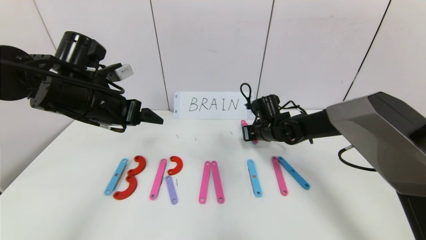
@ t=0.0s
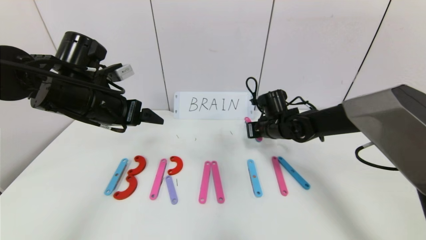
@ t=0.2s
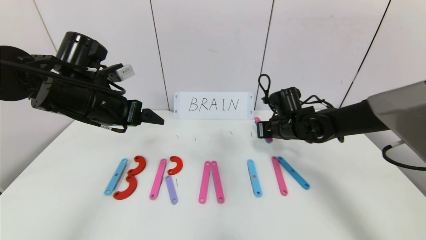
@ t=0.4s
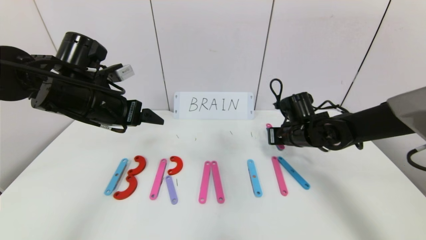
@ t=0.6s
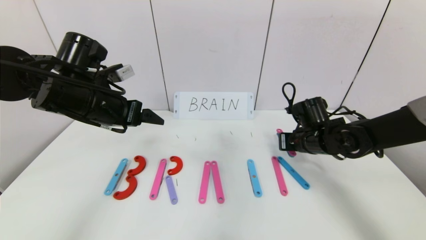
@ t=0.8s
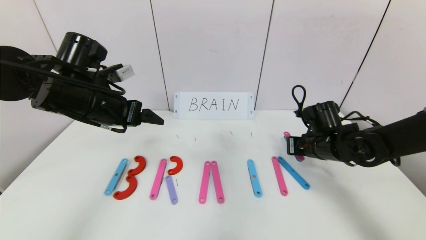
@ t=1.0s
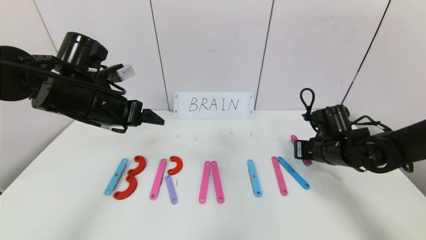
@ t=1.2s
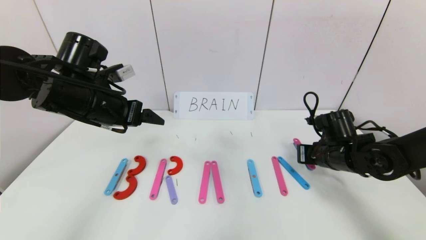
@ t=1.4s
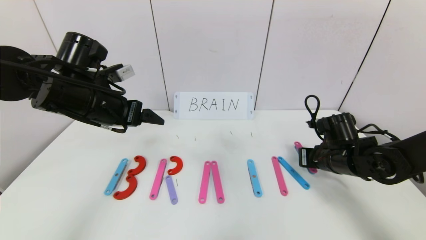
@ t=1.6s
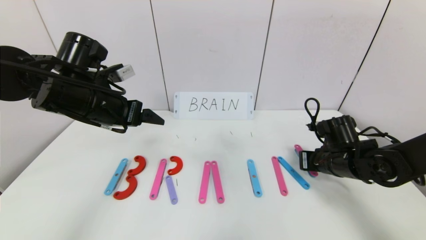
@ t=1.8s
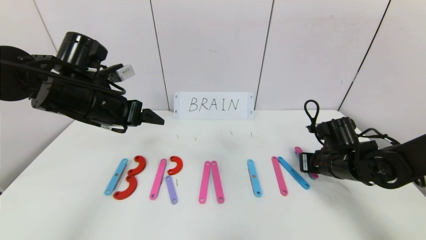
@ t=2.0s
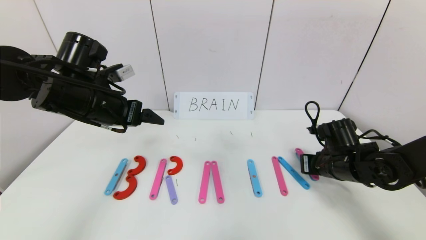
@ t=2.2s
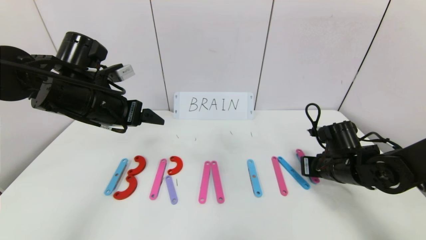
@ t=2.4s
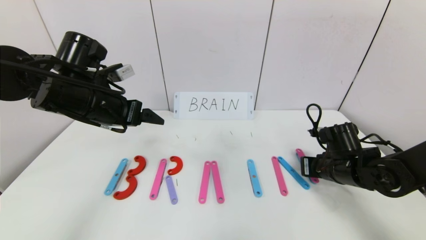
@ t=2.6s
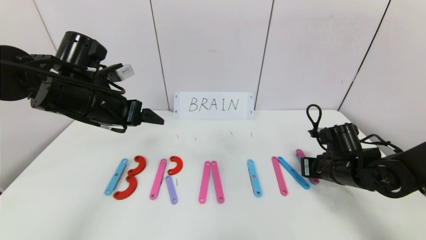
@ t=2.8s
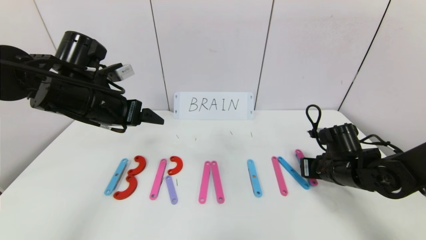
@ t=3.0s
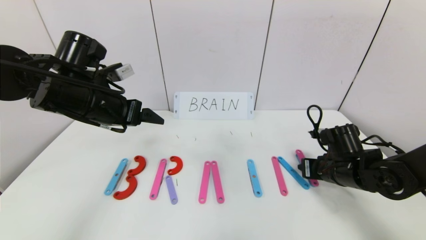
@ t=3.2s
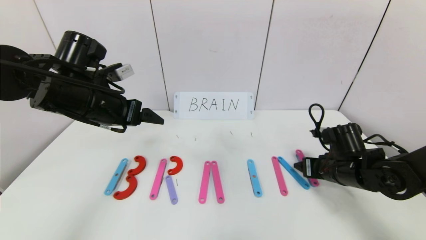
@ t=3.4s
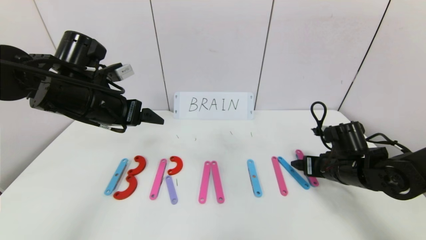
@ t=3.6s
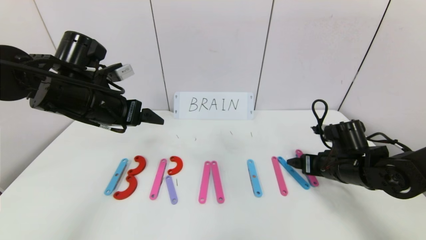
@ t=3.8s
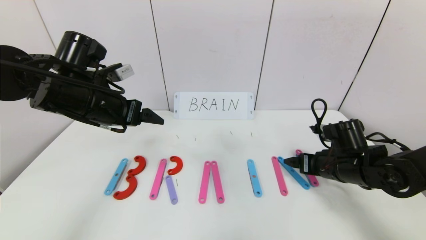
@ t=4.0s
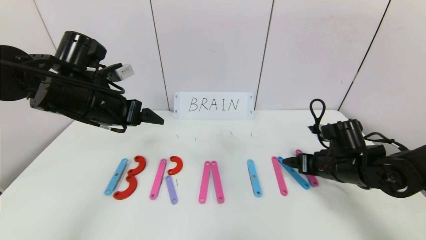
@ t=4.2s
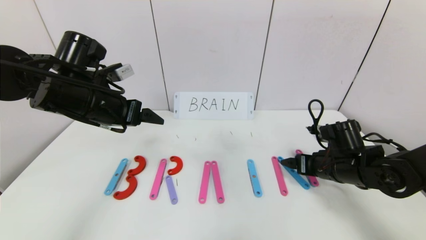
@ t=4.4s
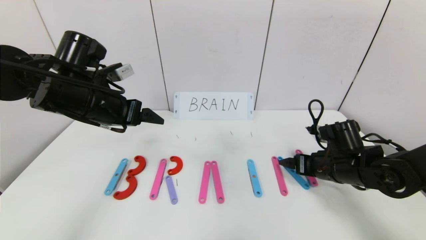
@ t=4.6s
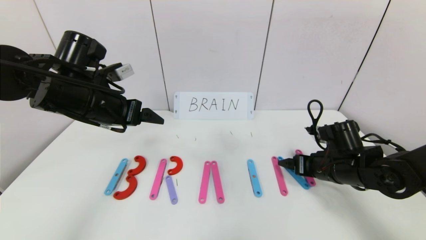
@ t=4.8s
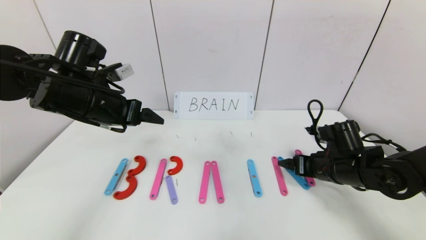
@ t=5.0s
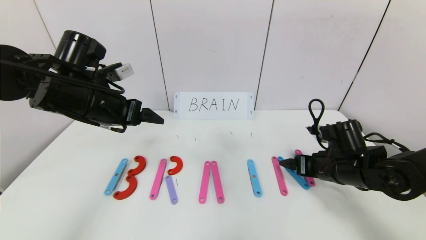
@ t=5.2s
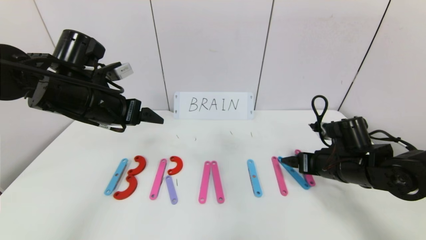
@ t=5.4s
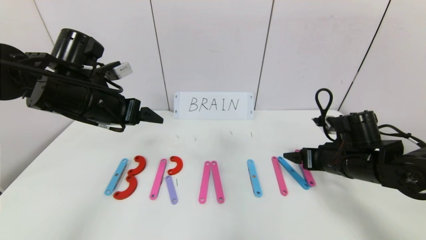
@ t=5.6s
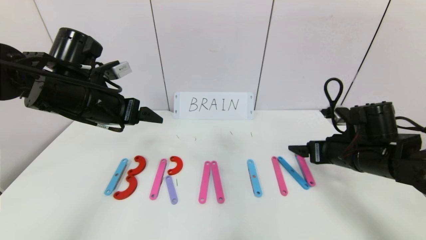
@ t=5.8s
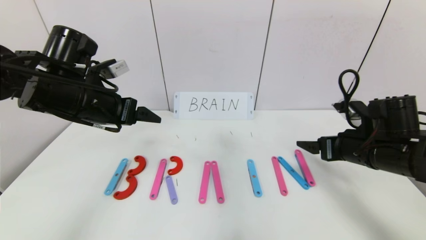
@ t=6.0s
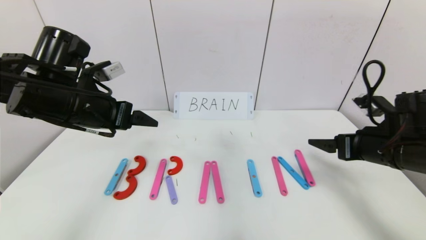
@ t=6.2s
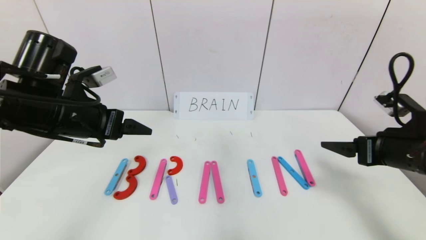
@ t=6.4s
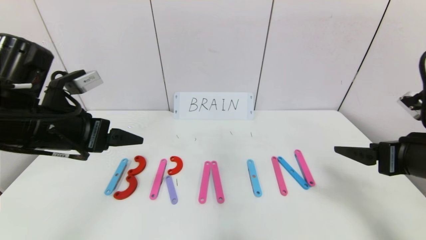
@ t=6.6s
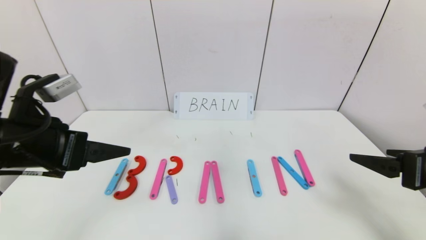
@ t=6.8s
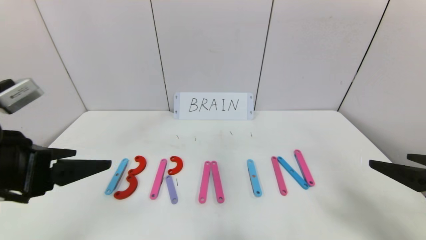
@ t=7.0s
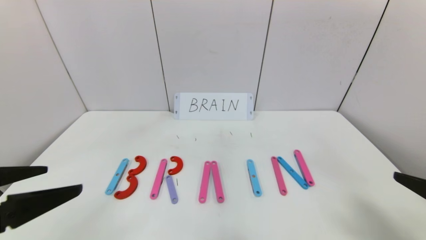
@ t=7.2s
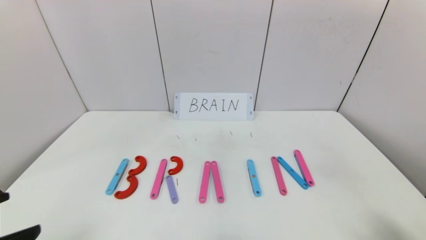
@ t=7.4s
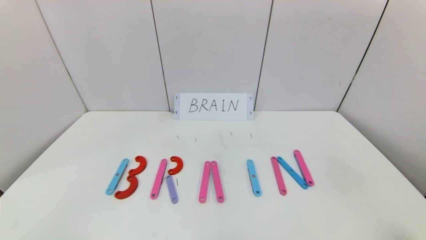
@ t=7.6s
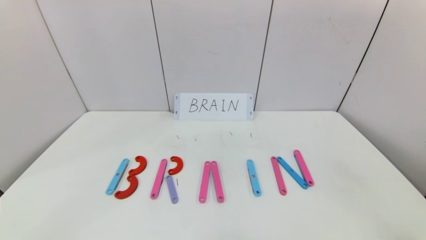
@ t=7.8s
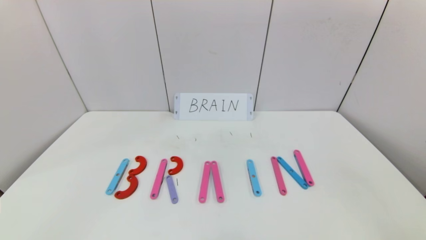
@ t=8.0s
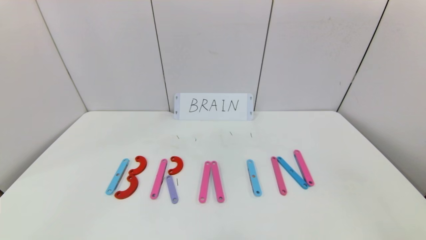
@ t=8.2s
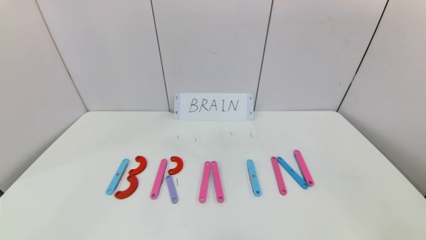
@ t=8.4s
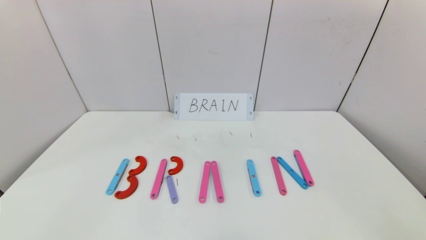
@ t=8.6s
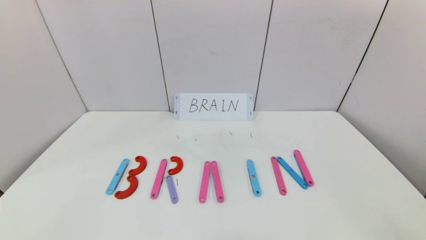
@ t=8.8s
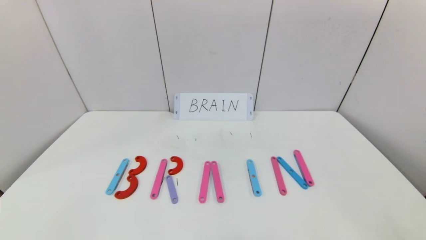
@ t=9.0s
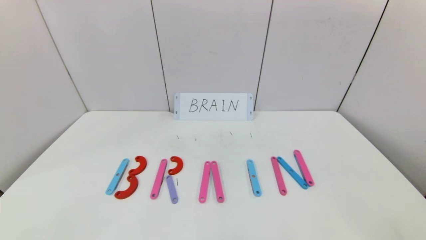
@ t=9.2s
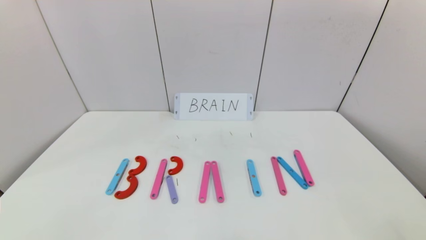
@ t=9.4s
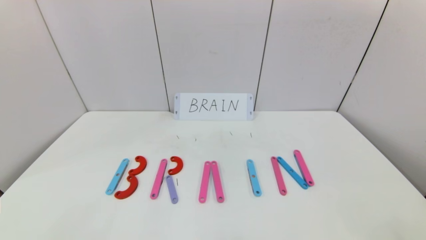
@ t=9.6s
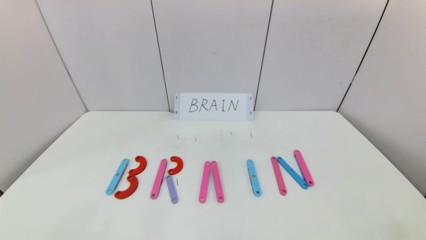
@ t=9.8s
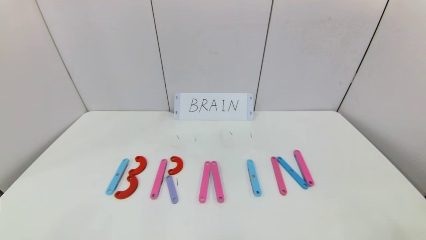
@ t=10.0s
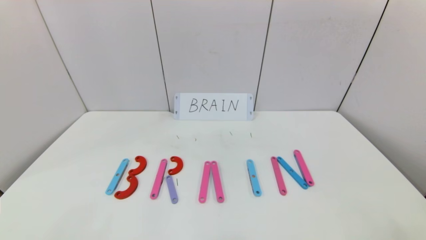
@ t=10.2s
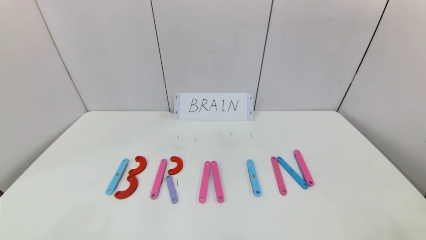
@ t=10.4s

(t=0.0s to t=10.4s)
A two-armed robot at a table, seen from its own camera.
Task of the whole recording: rearrange the word baai as brain.
Step, t=0.0s - t=5.8s: Place the character N after character I.
t=0.0s - t=1.4s: The right gripper is displaced backward and to the right by approximately 15 cm.
t=1.4s - t=3.0s: The grippers stay close to where they were, moving slightly.
t=3.0s - t=4.4s: The right gripper opens.
t=4.4s - t=6.0s: The right gripper shifts about 5 cm upward.
t=6.0s - t=7.4s: The grippers both shift backward by some 25 cm.
